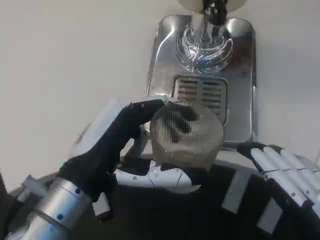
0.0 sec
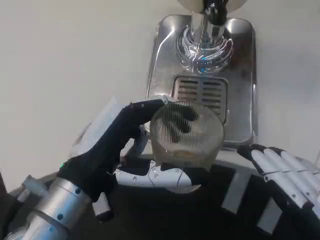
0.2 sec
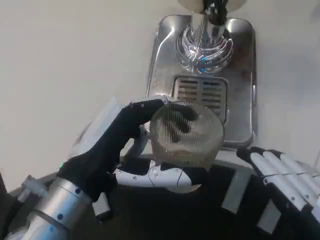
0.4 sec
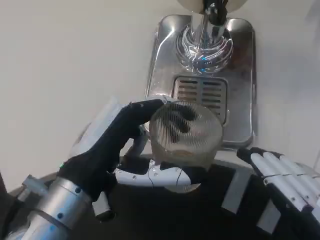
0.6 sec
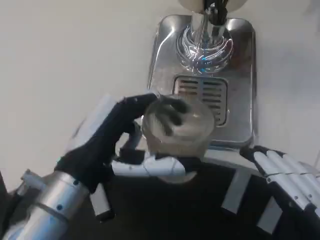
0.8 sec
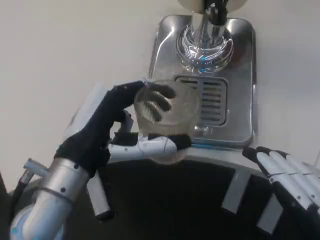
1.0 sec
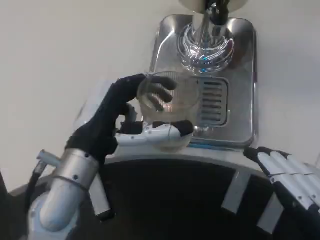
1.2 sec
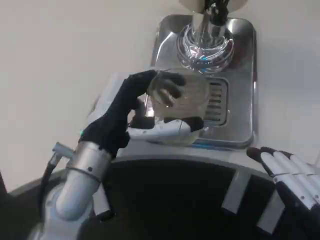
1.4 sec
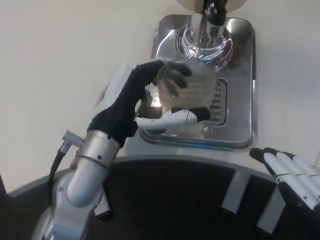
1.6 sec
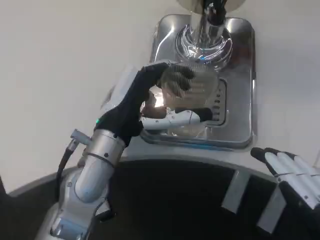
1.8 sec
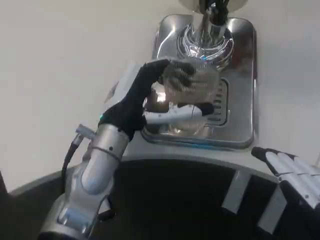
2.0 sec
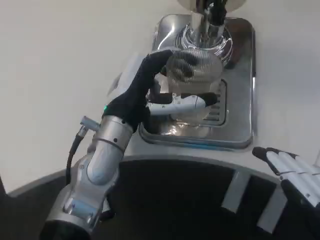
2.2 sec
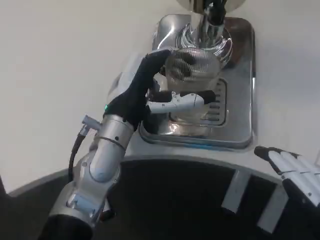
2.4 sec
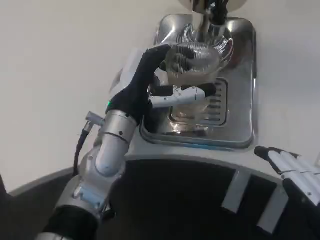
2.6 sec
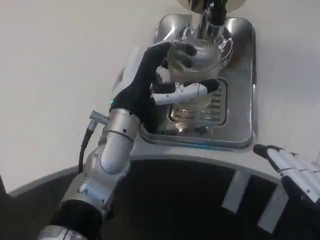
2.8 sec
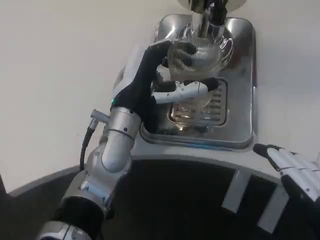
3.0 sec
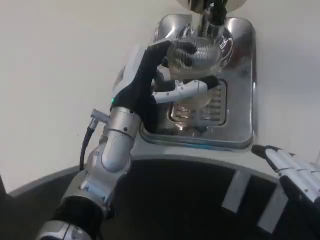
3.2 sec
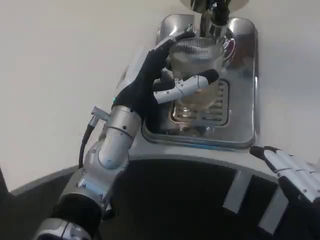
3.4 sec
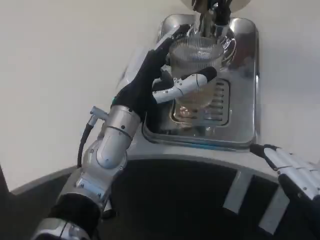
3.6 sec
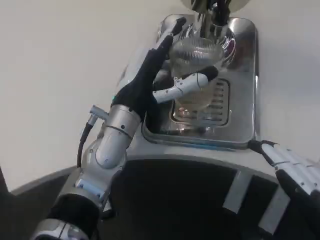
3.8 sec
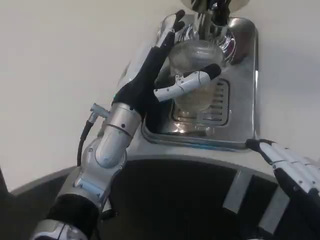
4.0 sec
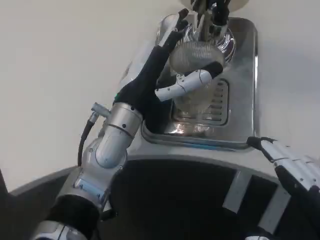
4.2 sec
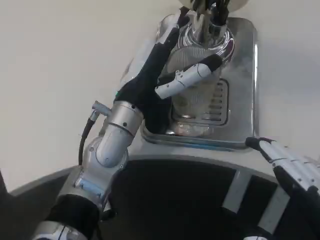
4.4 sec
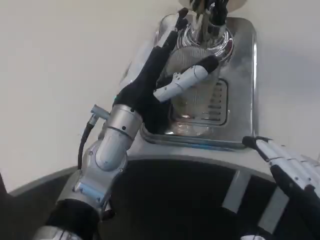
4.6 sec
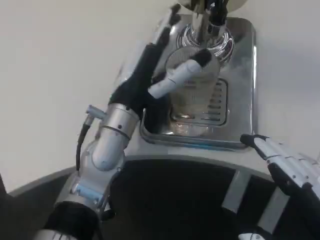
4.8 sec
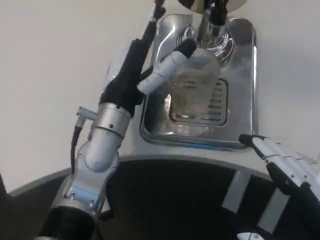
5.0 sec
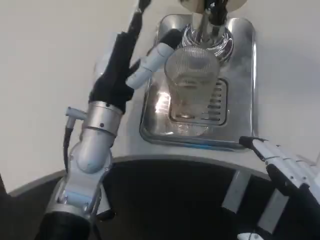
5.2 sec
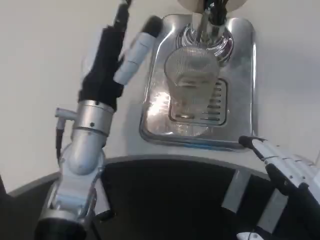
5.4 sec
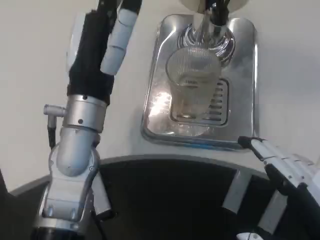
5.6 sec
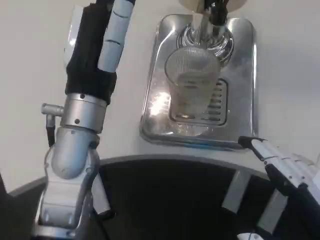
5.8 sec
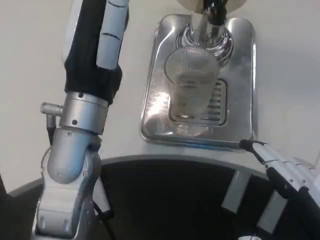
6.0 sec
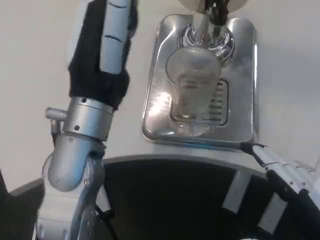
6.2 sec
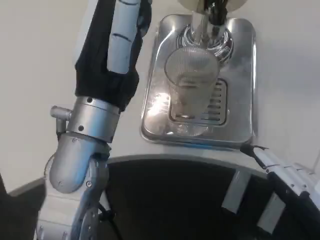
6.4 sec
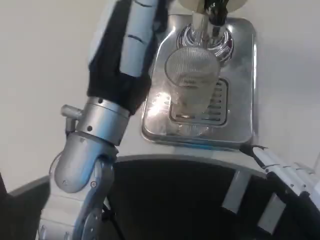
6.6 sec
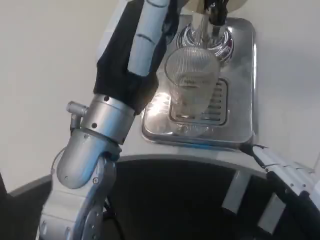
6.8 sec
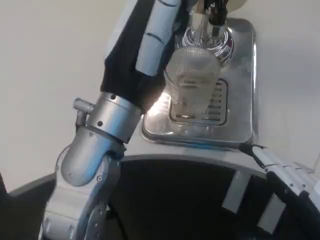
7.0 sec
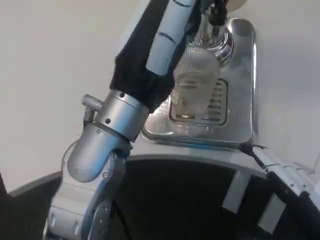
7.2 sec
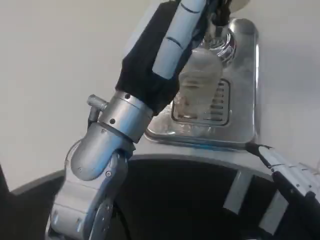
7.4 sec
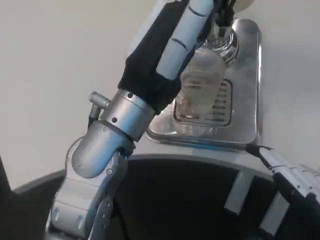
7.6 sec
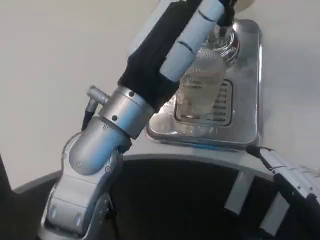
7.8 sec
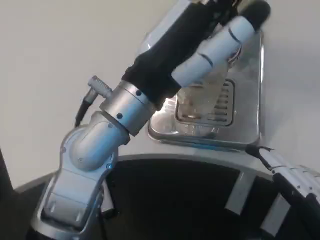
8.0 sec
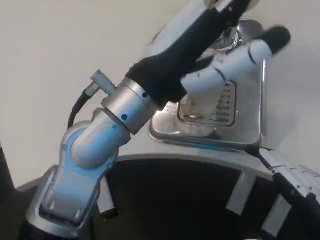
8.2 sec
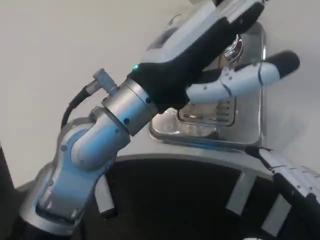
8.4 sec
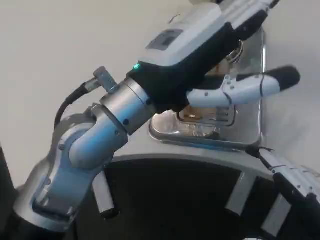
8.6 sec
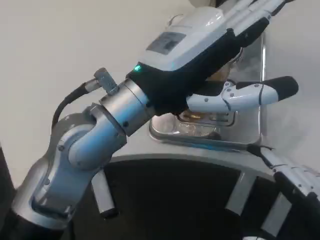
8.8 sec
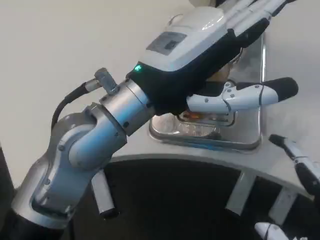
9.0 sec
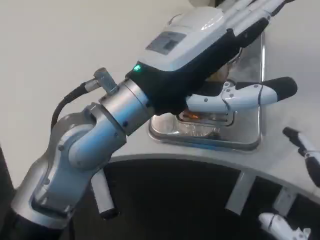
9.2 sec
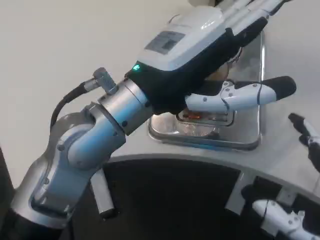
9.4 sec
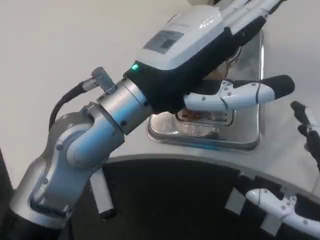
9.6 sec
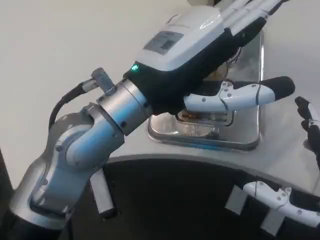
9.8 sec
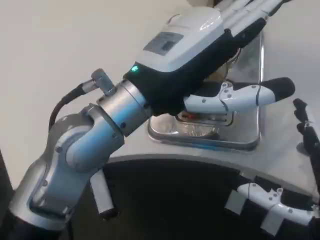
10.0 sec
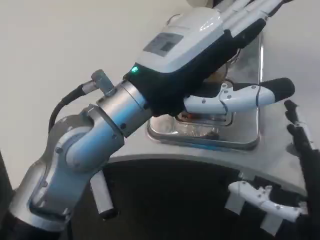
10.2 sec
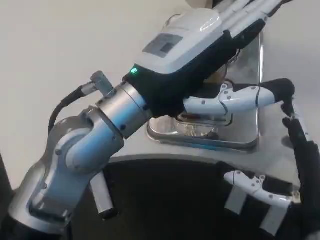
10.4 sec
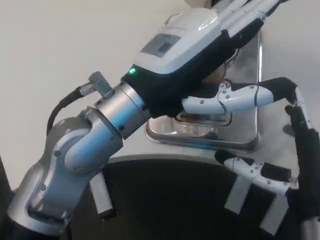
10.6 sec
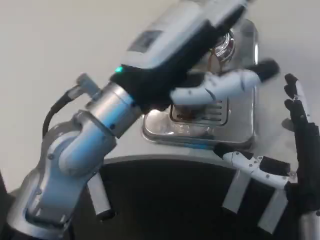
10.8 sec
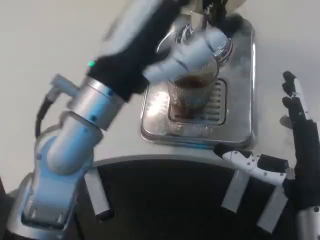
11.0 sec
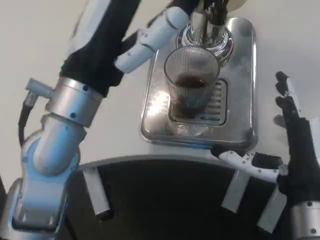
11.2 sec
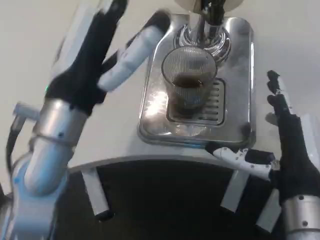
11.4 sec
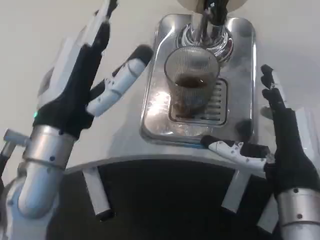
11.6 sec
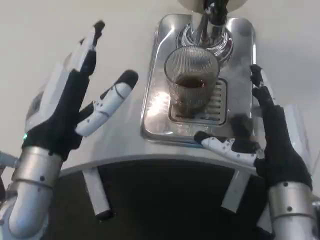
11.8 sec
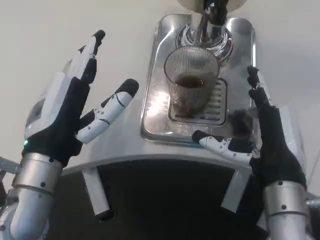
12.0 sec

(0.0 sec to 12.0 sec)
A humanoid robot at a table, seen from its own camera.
Task of the whole recording: Grasp the cup under the faucet to collect the drink, then remove the cup.
0.0 sec - 1.6 sec: The left hand heads forward, covering about 10 cm.
1.6 sec - 3.0 sec: The left hand shifts approximately 5 cm forward.
3.0 sec - 4.4 sec: The hands move only a little.
4.4 sec - 6.0 sec: The left hand shifts about 10 cm backward and upward.
9.0 sec - 10.4 sec: The right hand is displaced forward by about 10 cm.
10.4 sec - 12.0 sec: The left hand moves downward and to the left, approximately 10 cm, while the right hand moves forward, about 5 cm.

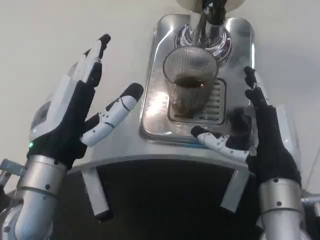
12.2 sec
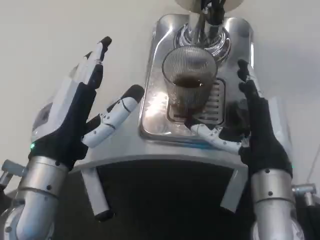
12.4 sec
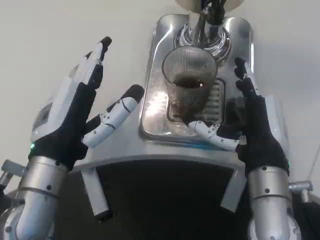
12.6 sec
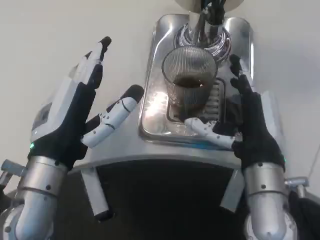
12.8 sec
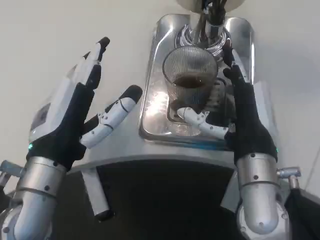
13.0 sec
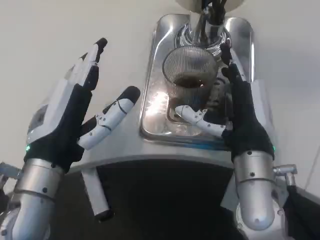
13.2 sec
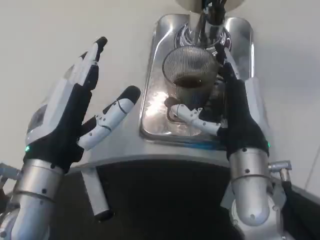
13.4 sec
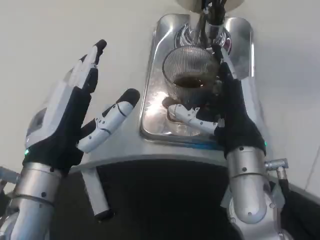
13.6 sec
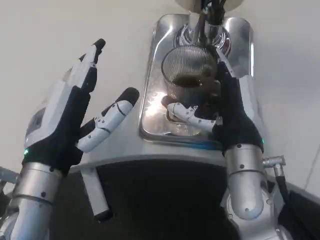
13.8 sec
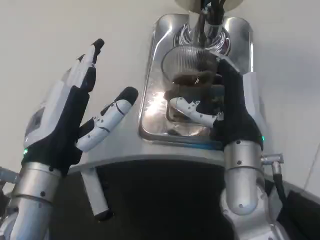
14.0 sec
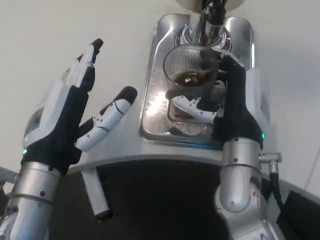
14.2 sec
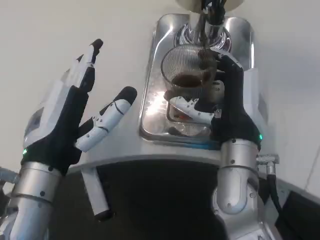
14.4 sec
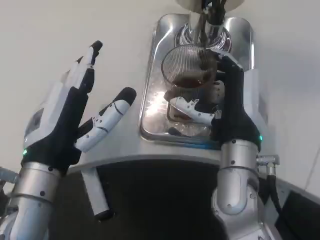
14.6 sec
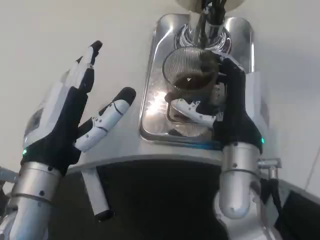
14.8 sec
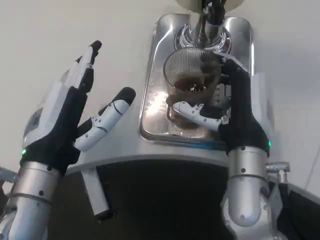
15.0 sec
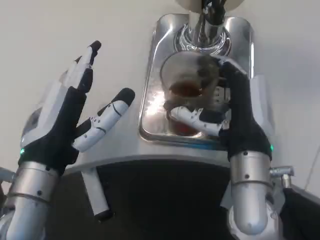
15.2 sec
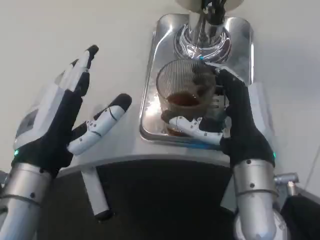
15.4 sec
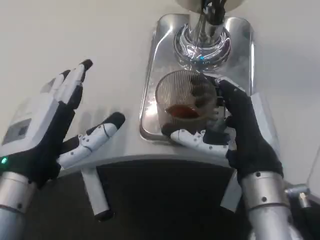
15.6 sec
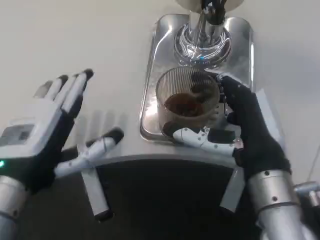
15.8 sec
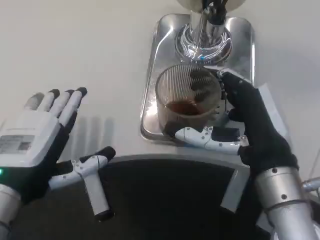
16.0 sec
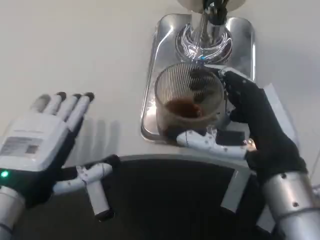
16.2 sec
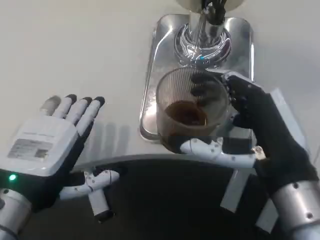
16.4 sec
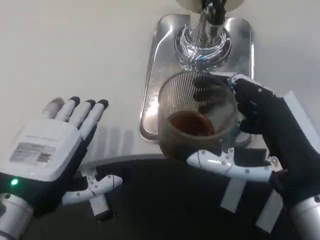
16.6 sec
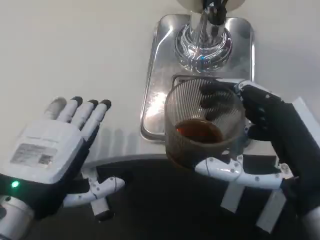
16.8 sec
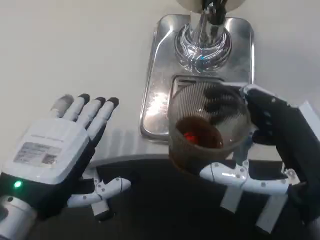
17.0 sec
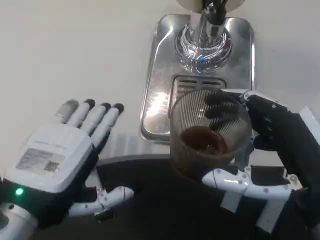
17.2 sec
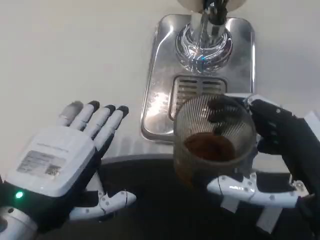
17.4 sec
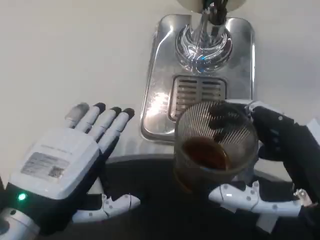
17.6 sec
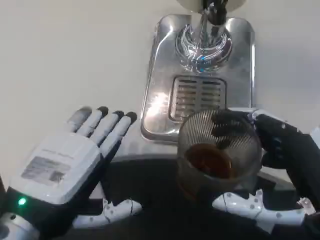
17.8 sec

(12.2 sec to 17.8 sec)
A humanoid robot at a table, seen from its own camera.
Task of the whole recording: Grasp the cup under the faucet to collect the drink, then remove the cup.
12.2 sec - 13.6 sec: The right hand moves some 5 cm.
13.6 sec - 15.0 sec: There are only small adjustments of the hands.
15.0 sec - 16.4 sec: The left hand ends up approximately 5 cm from where it was. Meanwhile the right hand moves backward and to the right, roughly 10 cm.
16.4 sec - 17.8 sec: The right hand goes some 5 cm backward.

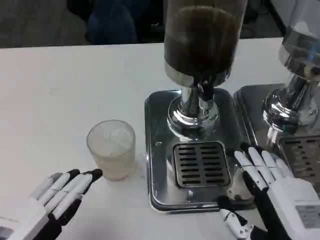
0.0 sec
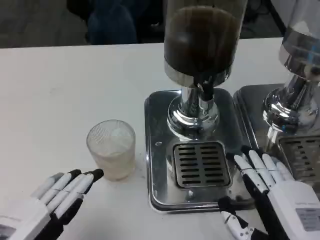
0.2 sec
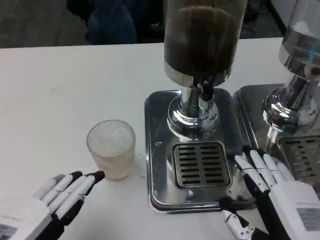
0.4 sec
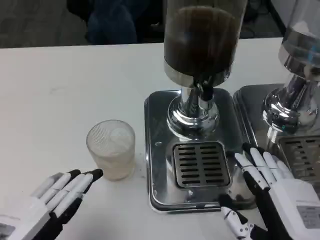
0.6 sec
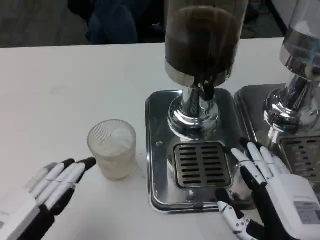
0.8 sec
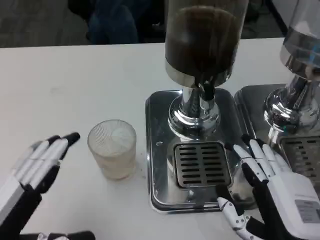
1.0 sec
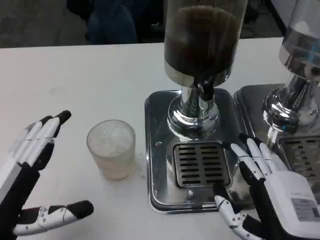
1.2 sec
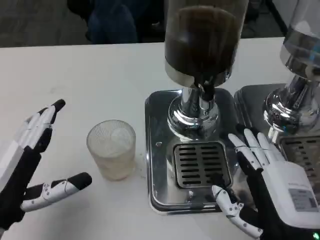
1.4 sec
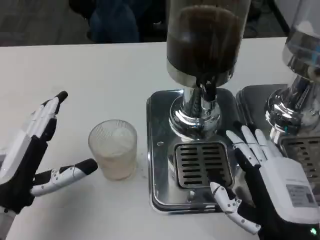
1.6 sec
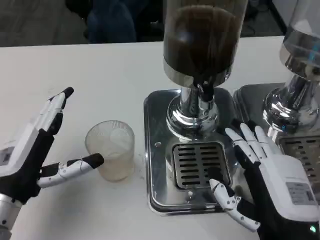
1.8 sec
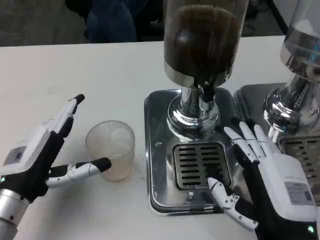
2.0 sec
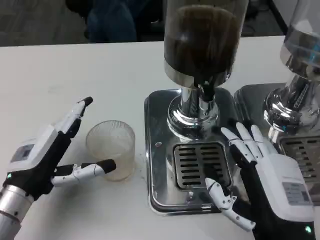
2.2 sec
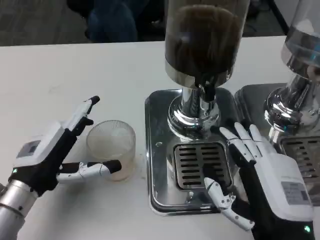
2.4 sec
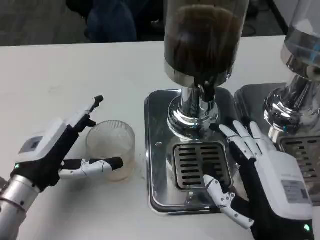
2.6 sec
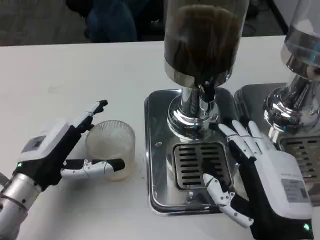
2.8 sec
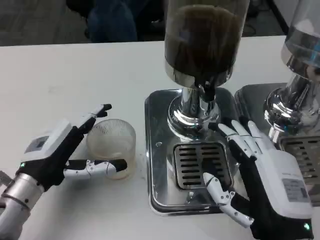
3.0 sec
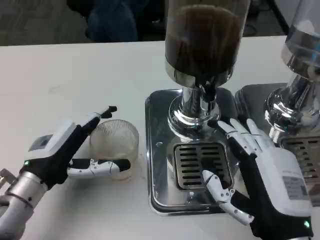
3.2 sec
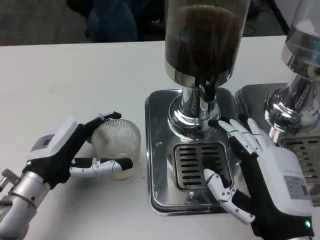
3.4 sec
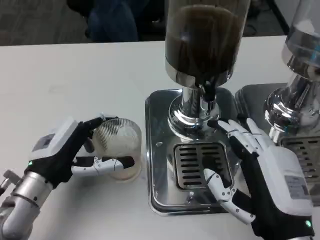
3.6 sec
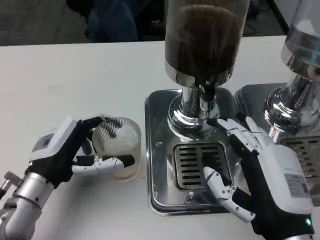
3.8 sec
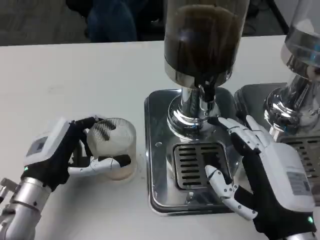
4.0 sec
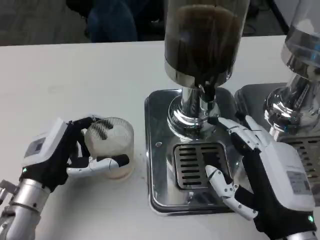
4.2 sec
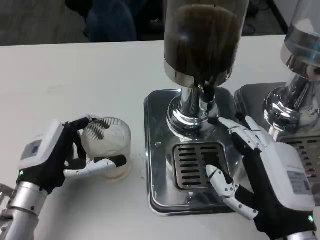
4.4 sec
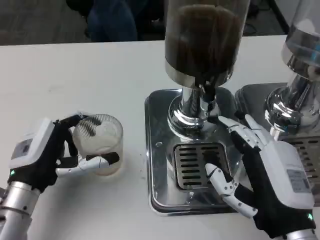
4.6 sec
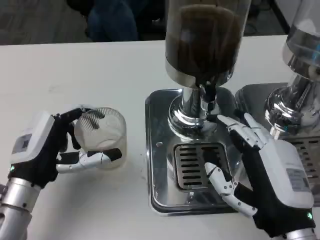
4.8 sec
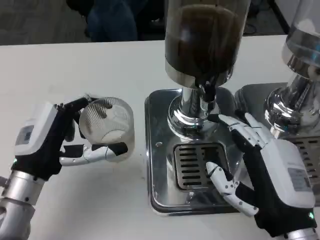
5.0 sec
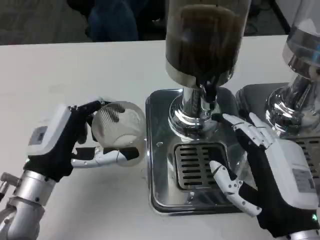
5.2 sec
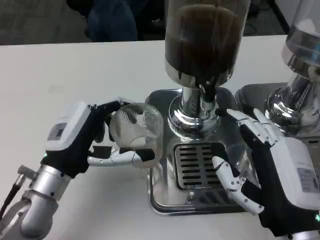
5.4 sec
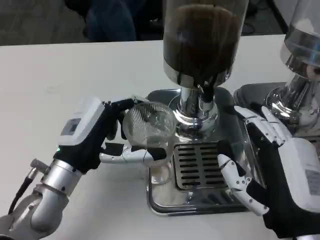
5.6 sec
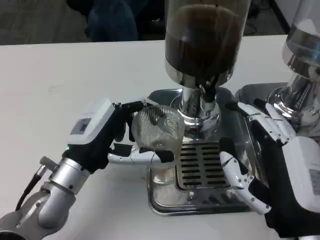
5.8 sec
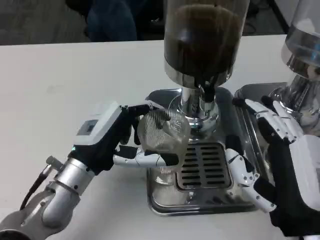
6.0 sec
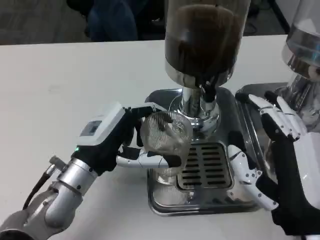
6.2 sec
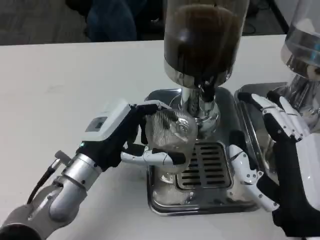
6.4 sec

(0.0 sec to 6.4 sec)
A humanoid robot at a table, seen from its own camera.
Task of the whole recording: Grasp the cup under the faucet to collect the drink, then remove the cup.
0.0 sec - 1.6 sec: The left hand goes approximately 10 cm forward and downward.
1.6 sec - 3.2 sec: The left hand heads forward, covering some 5 cm.
3.2 sec - 4.8 sec: The hands move only a little.
4.8 sec - 6.4 sec: The left hand travels to the right by roughly 5 cm.
